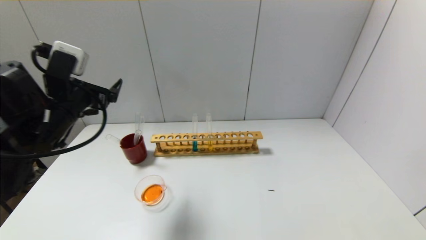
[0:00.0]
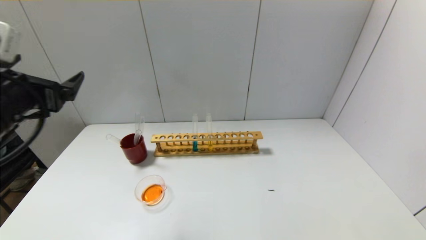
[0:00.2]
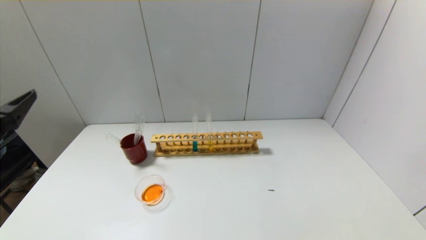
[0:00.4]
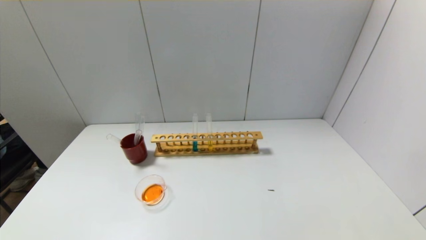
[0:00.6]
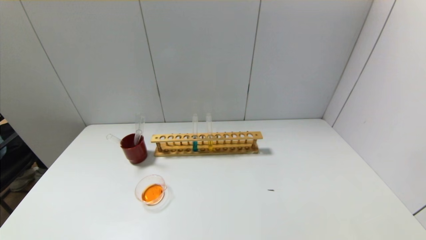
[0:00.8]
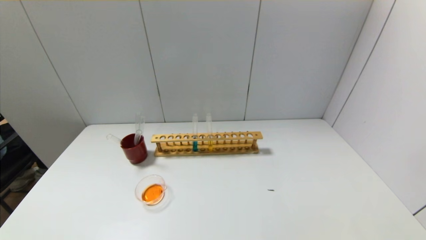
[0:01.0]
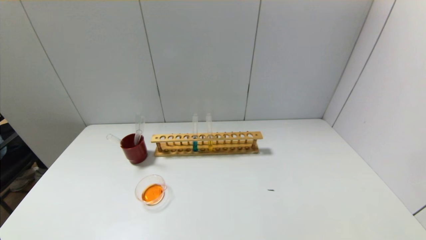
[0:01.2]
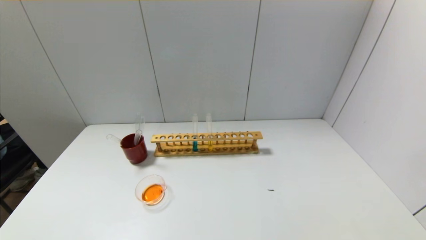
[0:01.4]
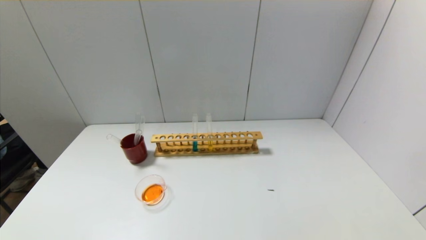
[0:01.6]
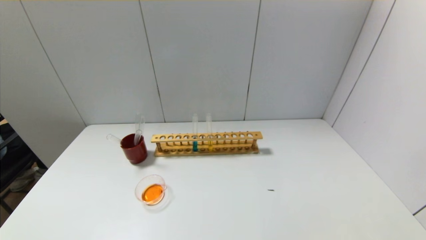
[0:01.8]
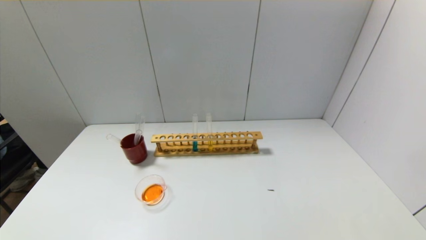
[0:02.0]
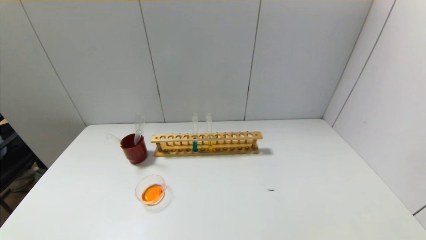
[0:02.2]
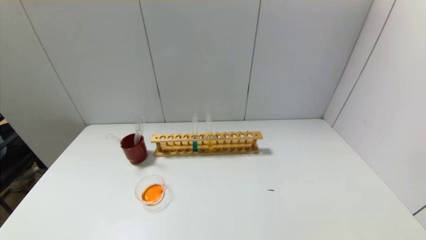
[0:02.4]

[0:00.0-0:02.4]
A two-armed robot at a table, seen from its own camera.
0:00.0 to 0:01.2: The left gripper shifts about 30 cm backward and downward.

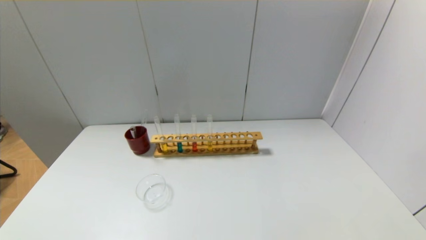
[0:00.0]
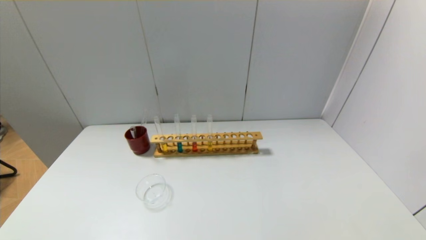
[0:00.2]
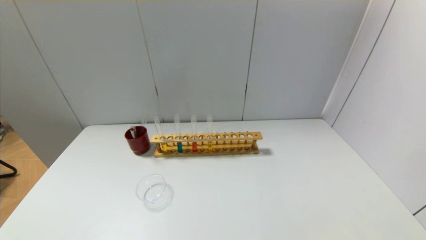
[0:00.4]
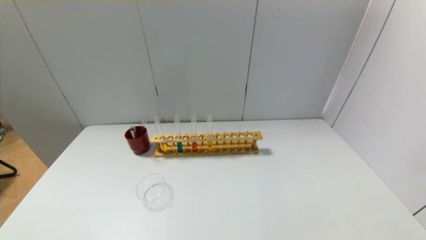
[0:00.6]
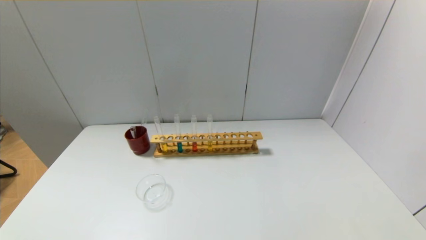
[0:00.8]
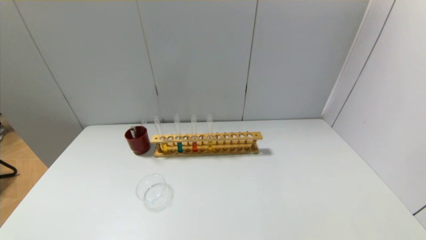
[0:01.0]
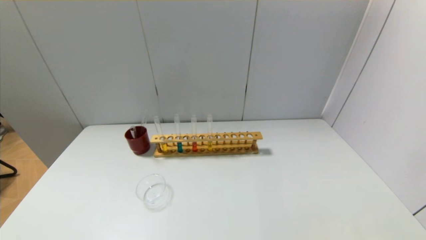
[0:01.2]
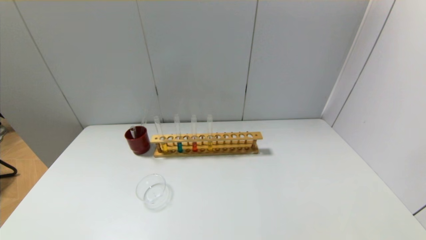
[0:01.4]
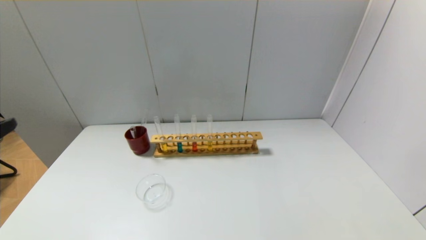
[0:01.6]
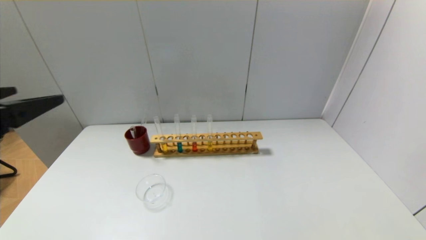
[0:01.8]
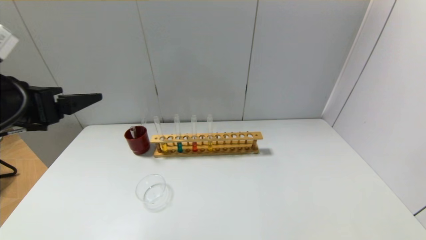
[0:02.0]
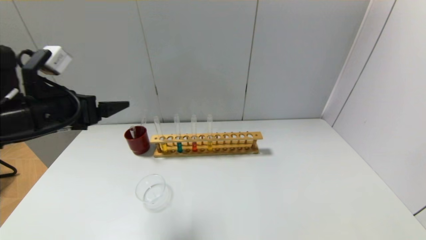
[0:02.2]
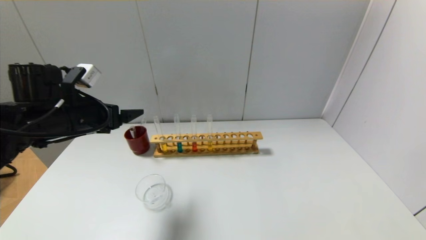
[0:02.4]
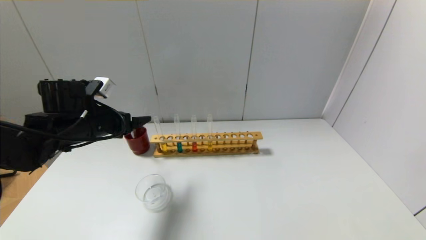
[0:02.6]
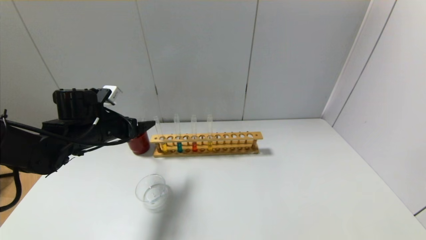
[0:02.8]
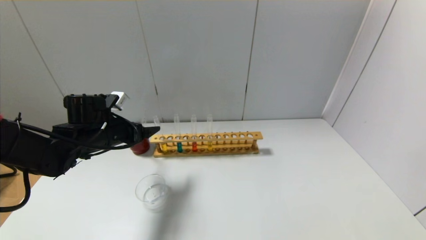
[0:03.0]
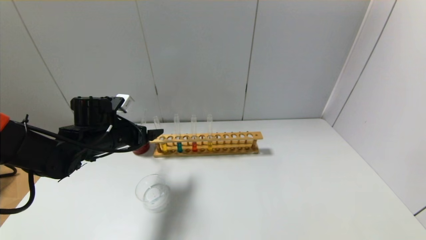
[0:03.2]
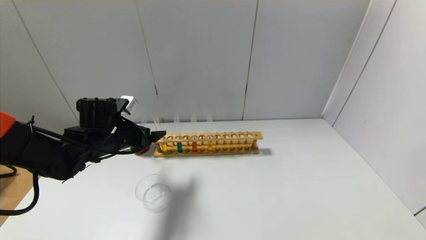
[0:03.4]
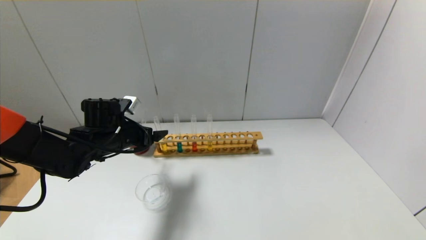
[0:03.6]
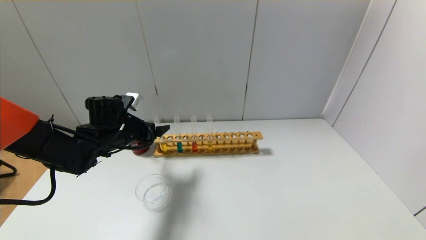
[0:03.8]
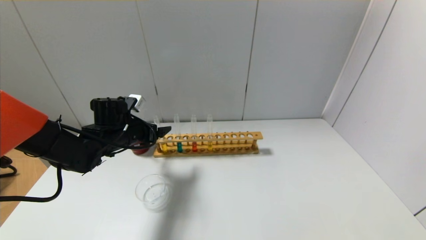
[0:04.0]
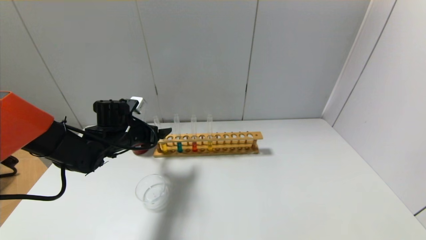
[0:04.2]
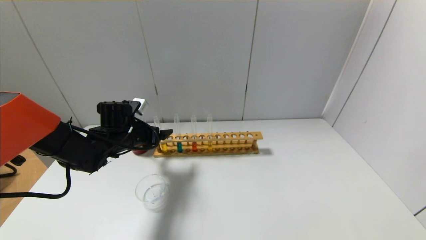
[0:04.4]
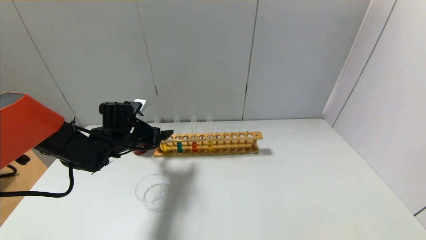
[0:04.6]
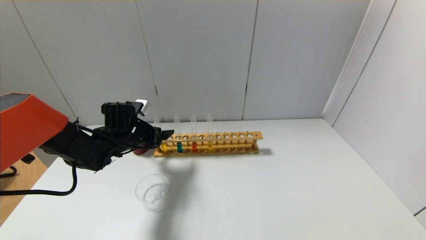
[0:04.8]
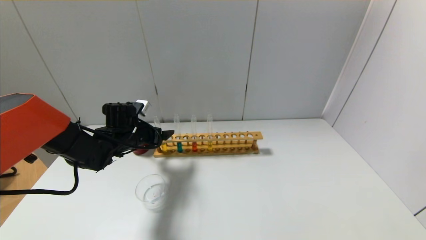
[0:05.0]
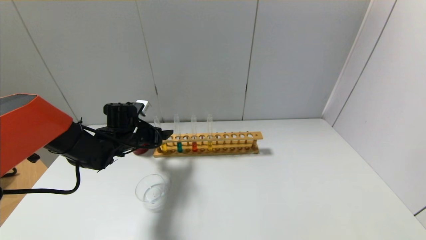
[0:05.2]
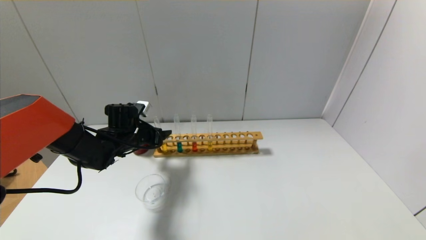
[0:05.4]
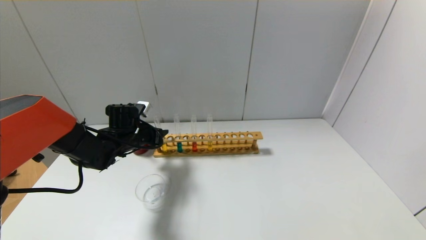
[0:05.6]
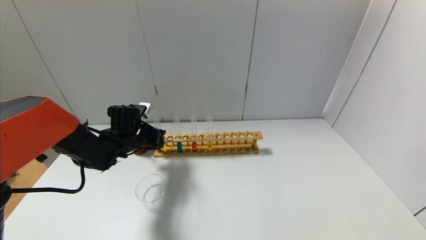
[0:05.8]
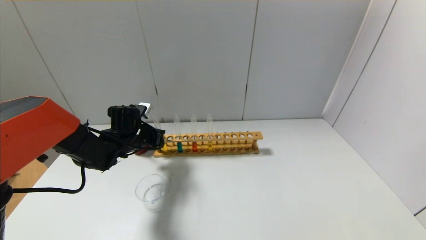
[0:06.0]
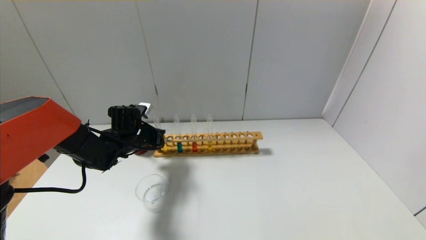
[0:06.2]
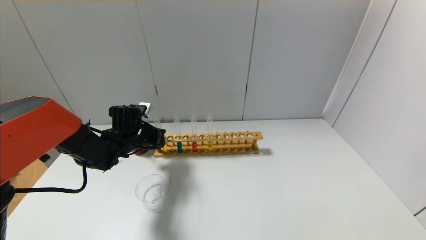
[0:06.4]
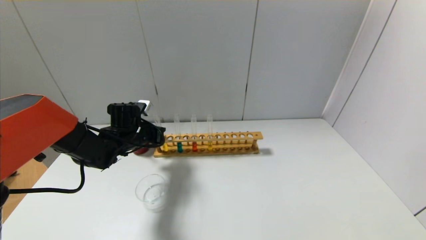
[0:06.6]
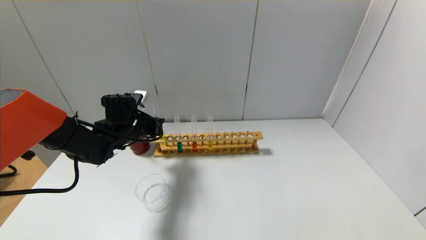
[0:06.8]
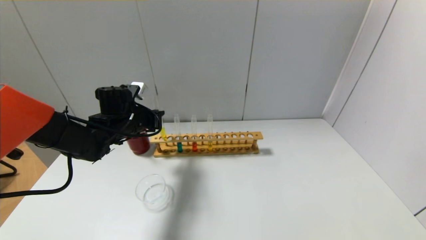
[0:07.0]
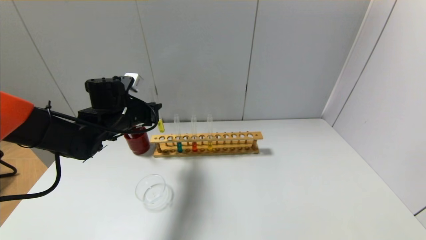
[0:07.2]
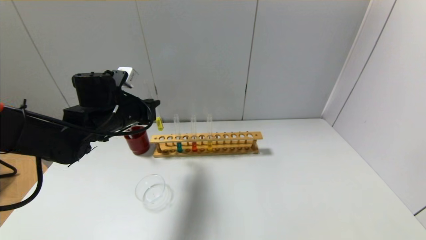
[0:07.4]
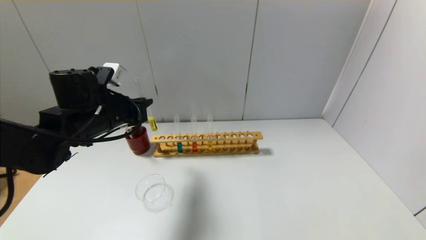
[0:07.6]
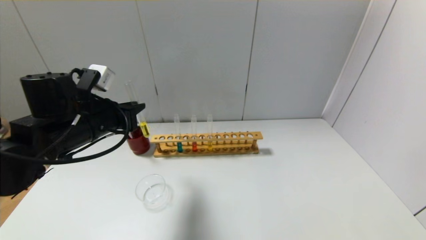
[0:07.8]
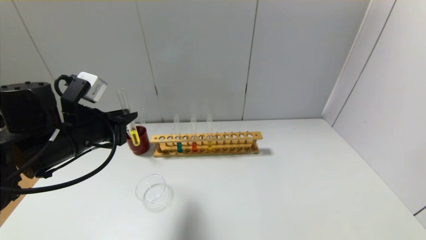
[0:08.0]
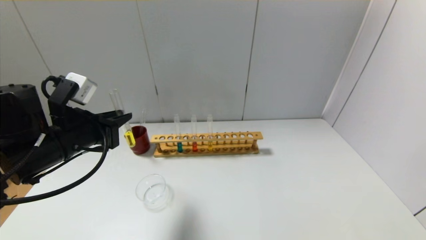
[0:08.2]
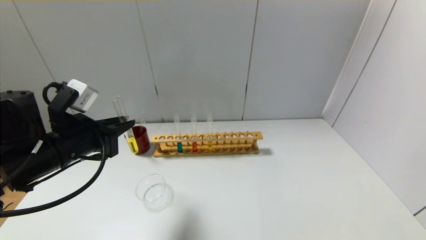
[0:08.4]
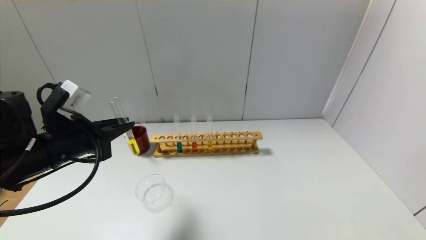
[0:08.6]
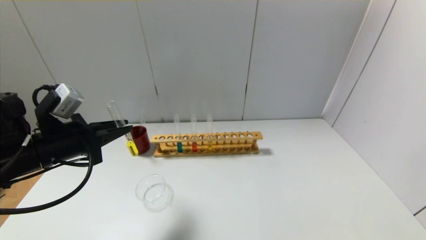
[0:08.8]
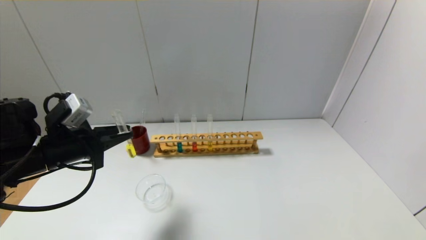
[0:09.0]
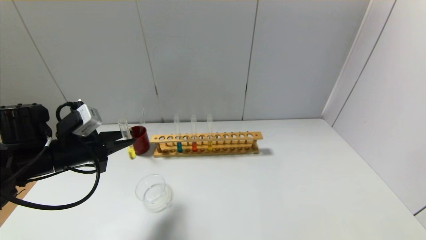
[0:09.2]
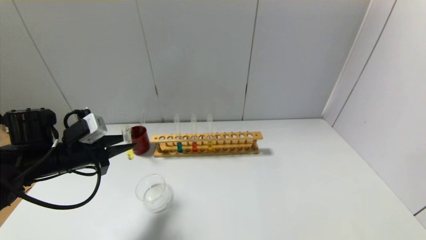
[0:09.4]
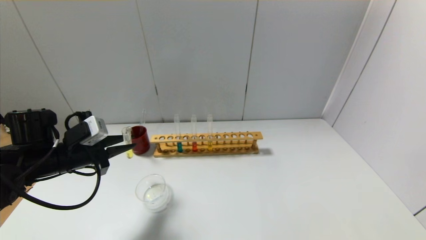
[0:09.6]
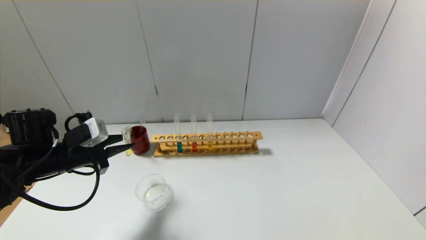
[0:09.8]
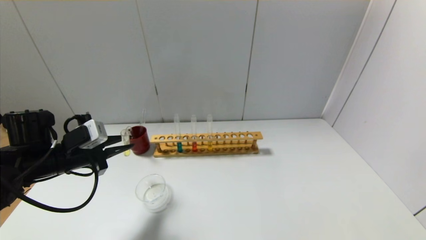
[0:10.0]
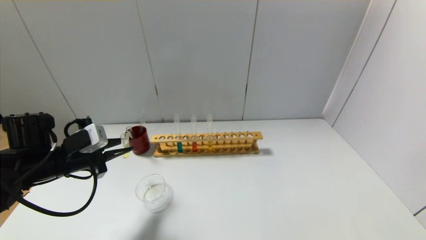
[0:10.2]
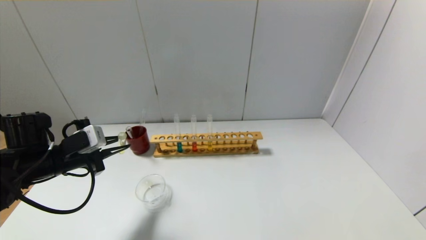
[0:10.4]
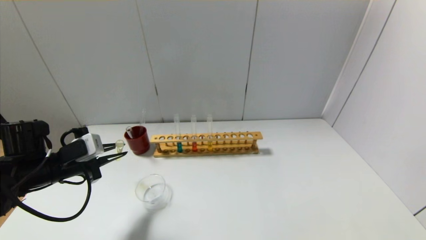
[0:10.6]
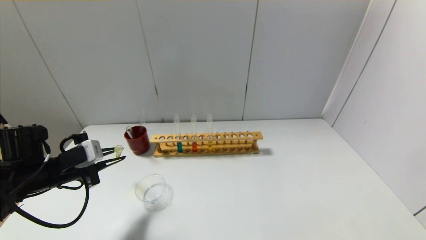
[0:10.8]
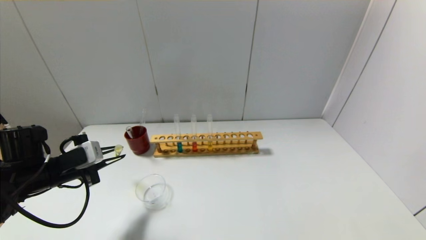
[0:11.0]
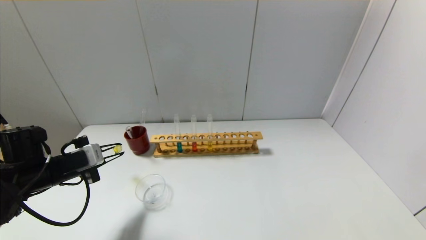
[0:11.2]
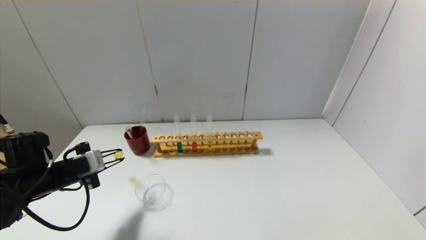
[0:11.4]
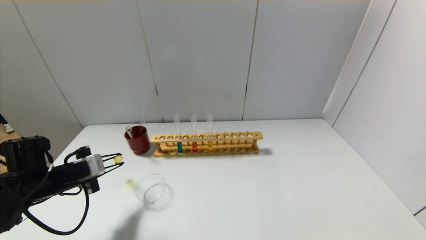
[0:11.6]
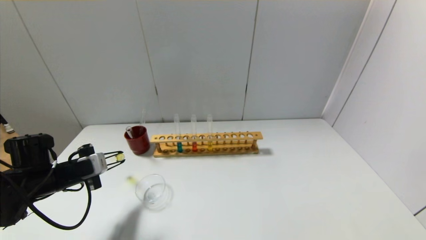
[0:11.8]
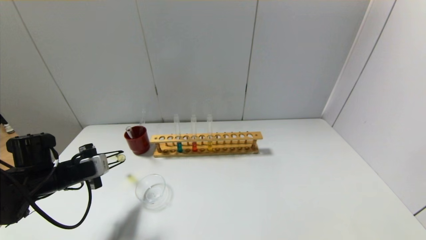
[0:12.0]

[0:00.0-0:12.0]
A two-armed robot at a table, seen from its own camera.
Step, 0:00.0 to 0:05.8: Grasp the yellow reagent with the left gripper.
0:01.6 to 0:03.0: The left gripper shifts approximately 30 cm forward and downward.
0:03.0 to 0:04.4: The left gripper moves some 5 cm.
0:04.4 to 0:06.0: The left gripper closes up.
0:06.0 to 0:07.6: The left gripper goes some 15 cm upward and backward.
0:07.6 to 0:09.0: The left gripper heads backward and to the left, covering some 10 cm.
0:09.0 to 0:10.4: The left gripper moves about 5 cm.
0:10.4 to 0:12.0: The left gripper heads downward, covering roughly 5 cm.

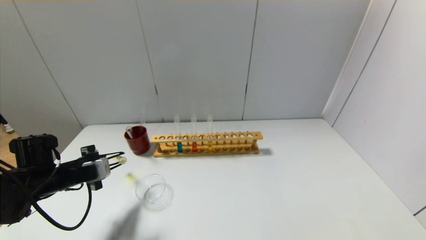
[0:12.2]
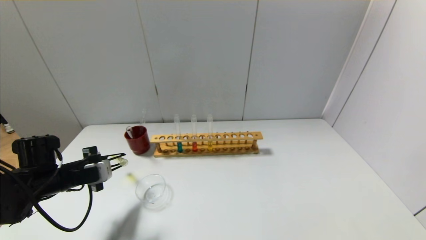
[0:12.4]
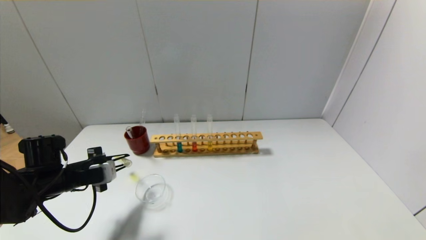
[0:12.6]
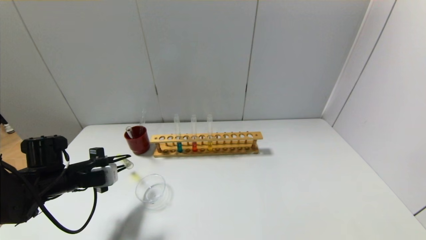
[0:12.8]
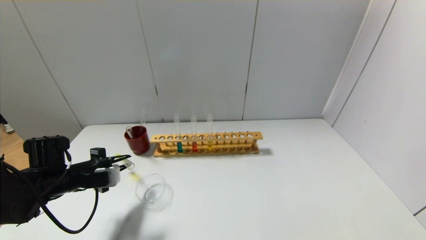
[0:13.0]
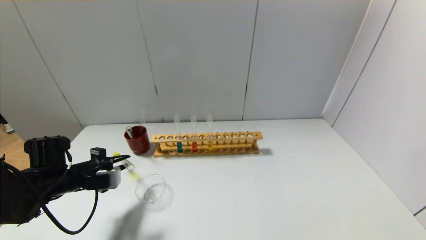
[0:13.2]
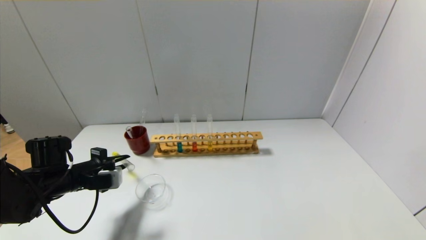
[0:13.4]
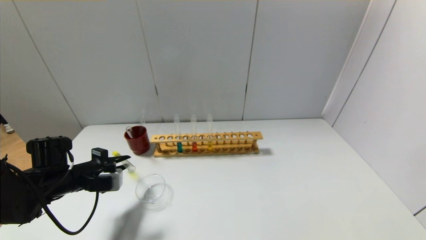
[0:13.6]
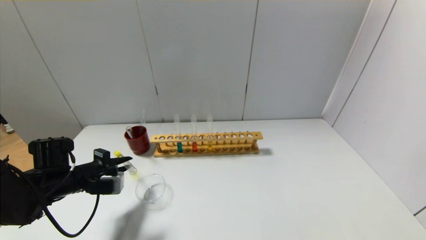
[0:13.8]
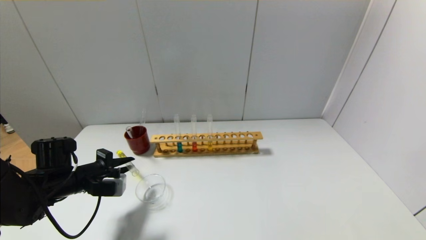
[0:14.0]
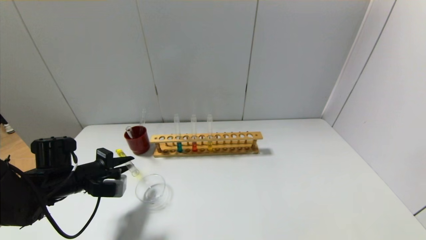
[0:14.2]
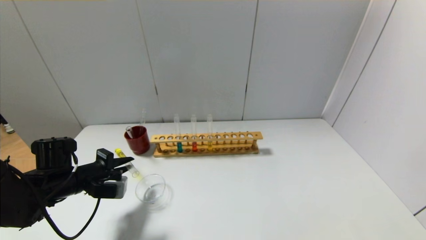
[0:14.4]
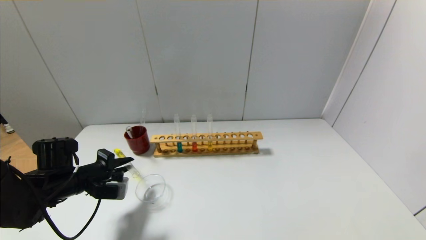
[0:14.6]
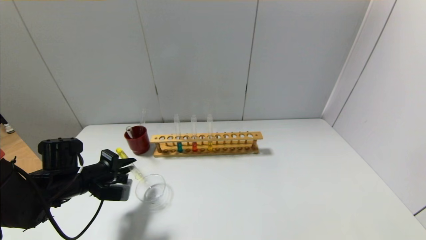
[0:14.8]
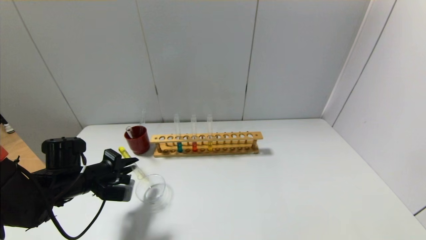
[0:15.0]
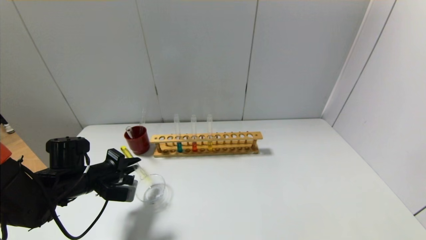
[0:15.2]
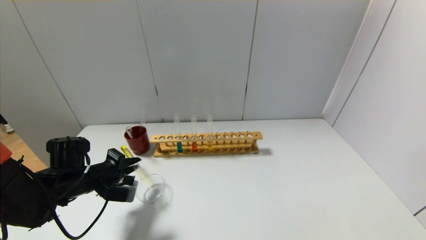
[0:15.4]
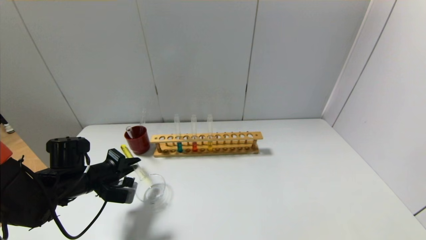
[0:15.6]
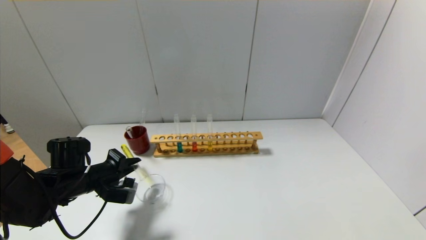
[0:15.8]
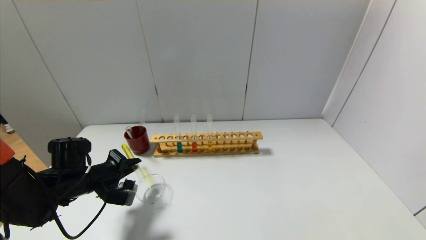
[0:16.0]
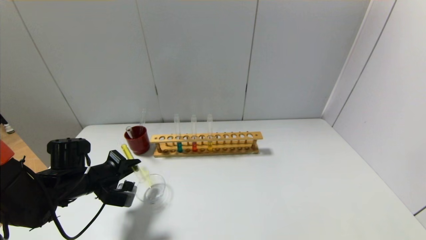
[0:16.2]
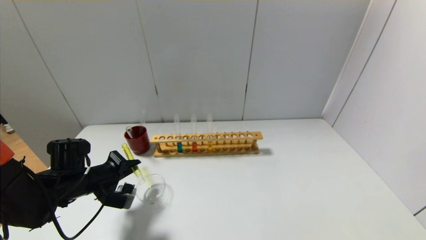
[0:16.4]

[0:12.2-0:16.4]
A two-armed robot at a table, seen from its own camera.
0:12.2 to 0:13.6: The grippers make only small movements.
0:13.6 to 0:15.0: The grippers move only a little.
0:15.0 to 0:16.4: The grippers make only small movements.
